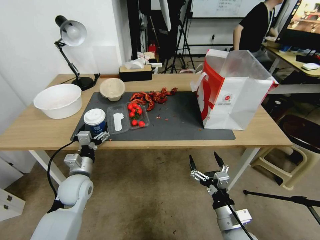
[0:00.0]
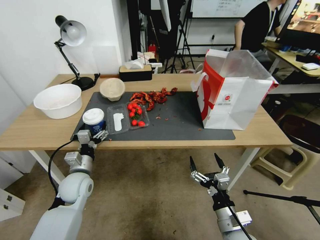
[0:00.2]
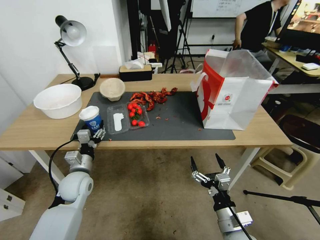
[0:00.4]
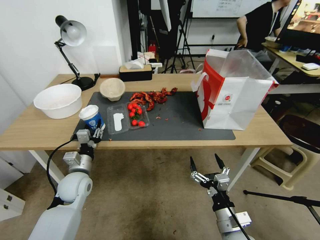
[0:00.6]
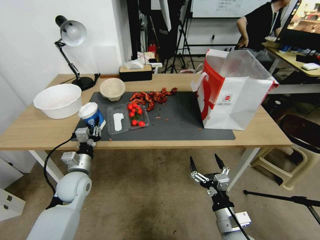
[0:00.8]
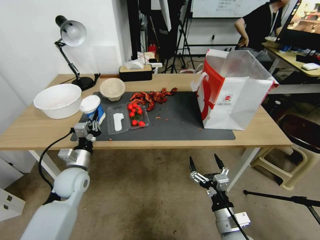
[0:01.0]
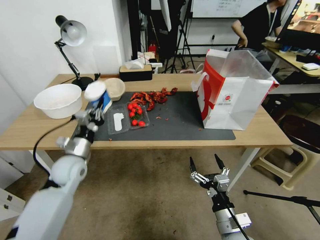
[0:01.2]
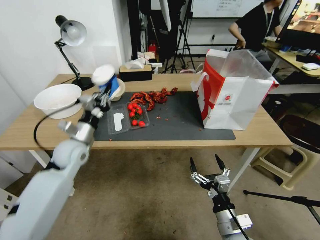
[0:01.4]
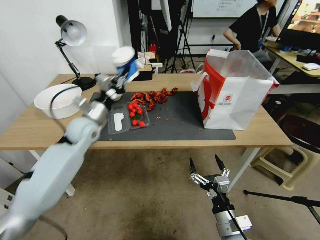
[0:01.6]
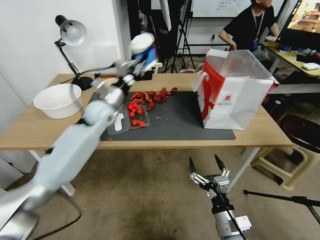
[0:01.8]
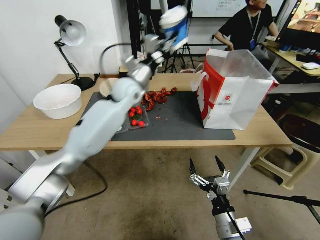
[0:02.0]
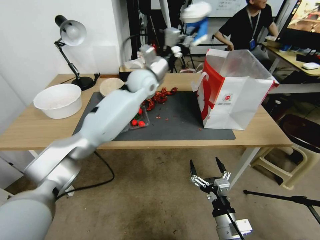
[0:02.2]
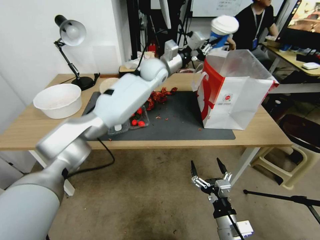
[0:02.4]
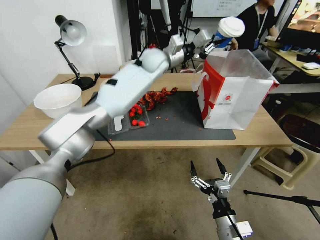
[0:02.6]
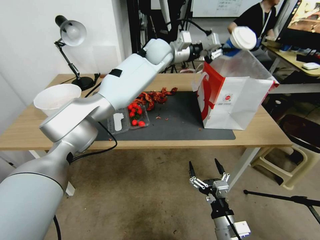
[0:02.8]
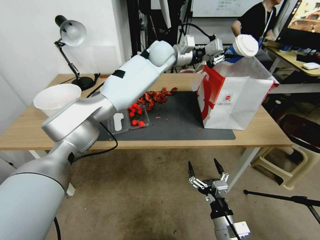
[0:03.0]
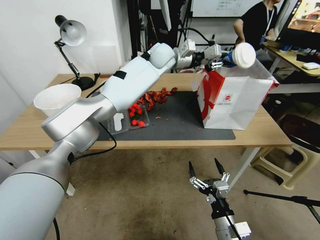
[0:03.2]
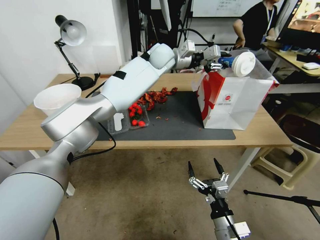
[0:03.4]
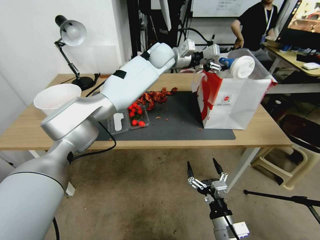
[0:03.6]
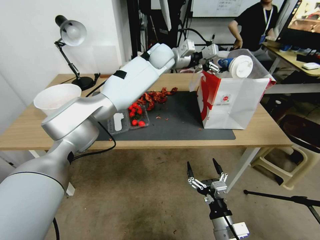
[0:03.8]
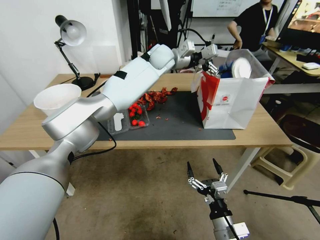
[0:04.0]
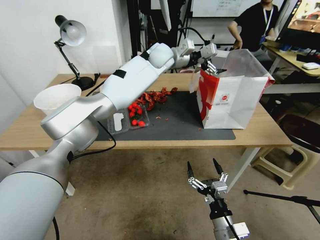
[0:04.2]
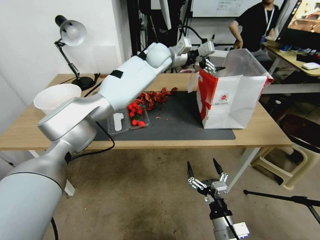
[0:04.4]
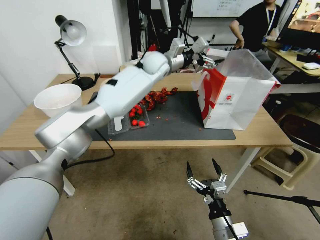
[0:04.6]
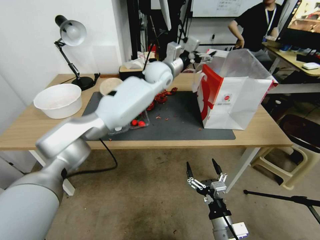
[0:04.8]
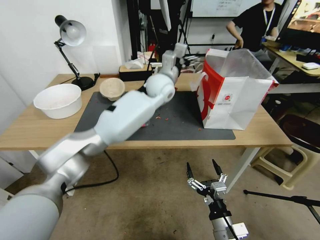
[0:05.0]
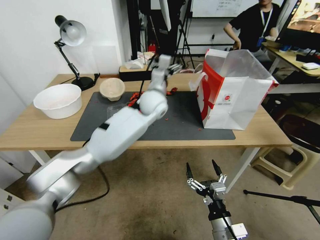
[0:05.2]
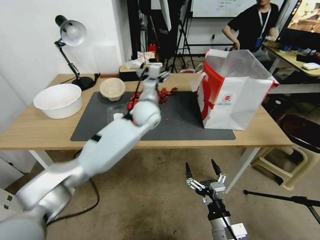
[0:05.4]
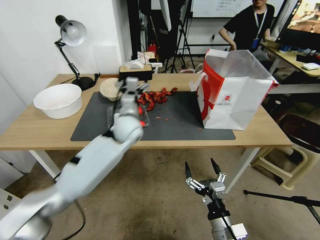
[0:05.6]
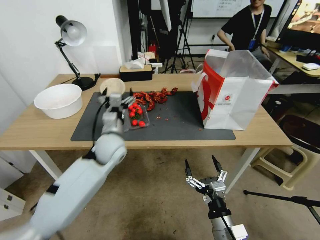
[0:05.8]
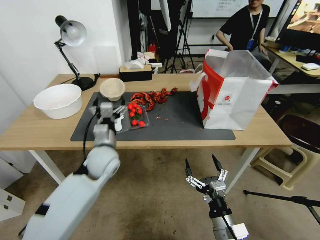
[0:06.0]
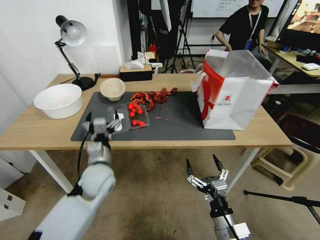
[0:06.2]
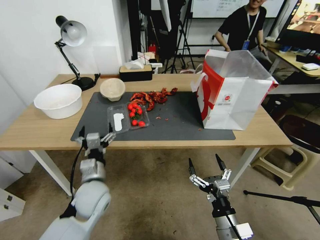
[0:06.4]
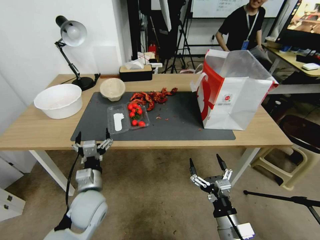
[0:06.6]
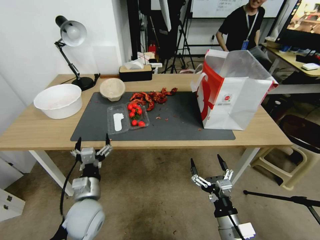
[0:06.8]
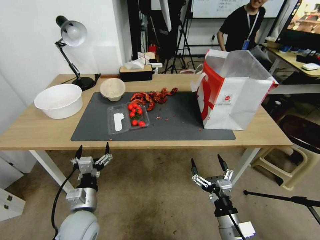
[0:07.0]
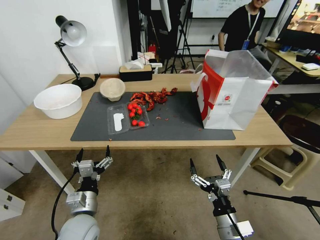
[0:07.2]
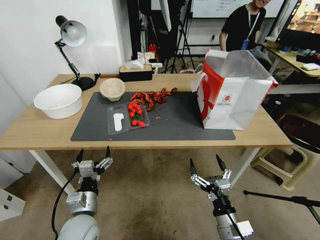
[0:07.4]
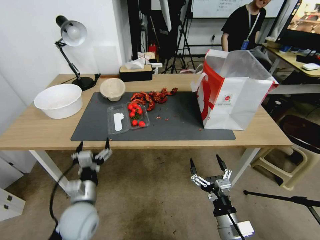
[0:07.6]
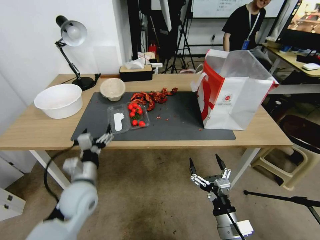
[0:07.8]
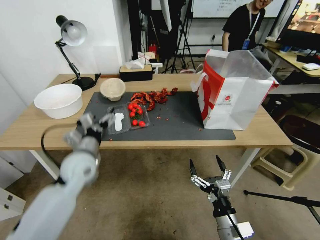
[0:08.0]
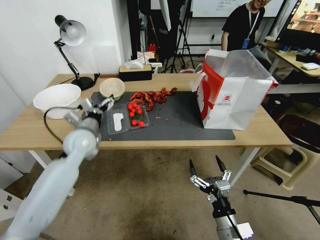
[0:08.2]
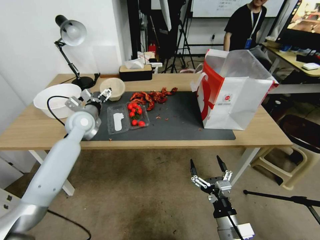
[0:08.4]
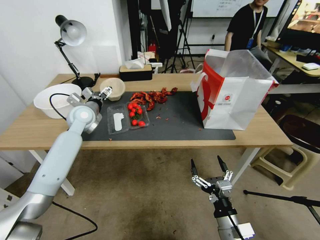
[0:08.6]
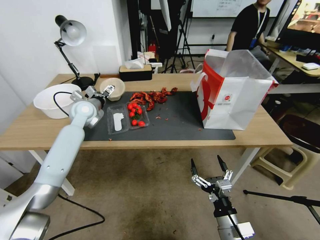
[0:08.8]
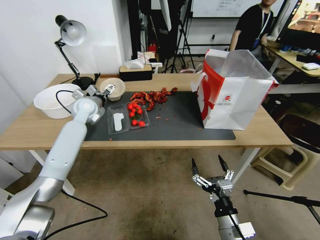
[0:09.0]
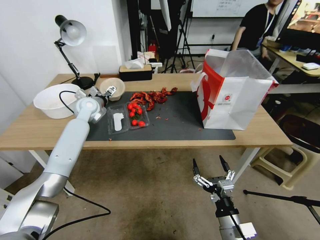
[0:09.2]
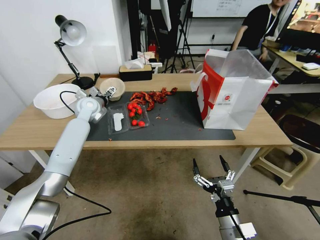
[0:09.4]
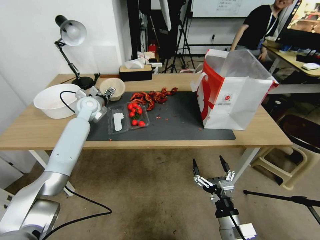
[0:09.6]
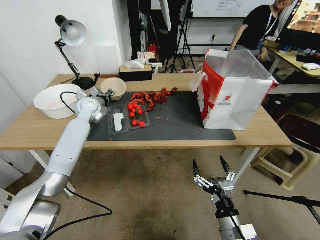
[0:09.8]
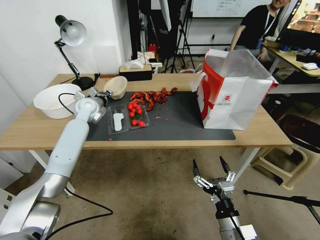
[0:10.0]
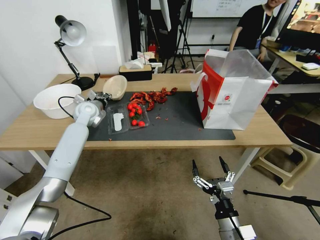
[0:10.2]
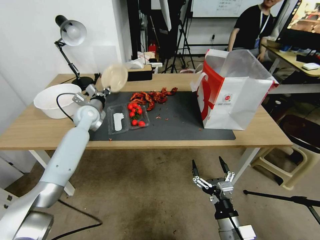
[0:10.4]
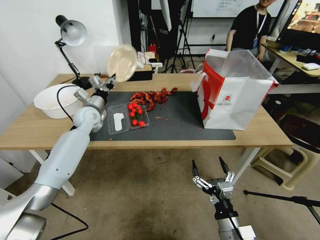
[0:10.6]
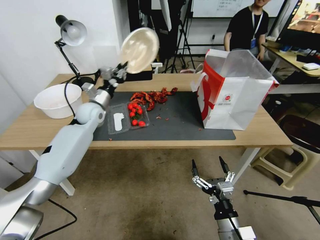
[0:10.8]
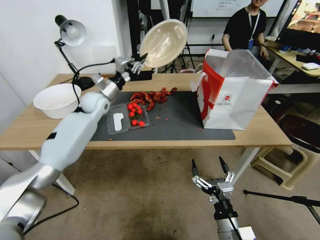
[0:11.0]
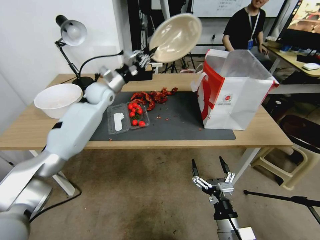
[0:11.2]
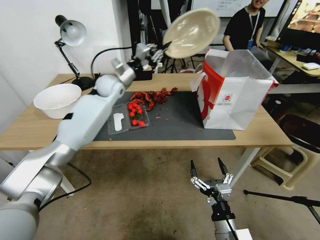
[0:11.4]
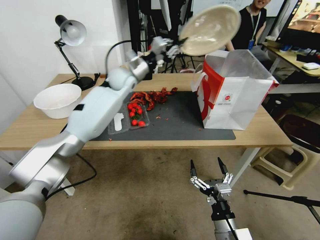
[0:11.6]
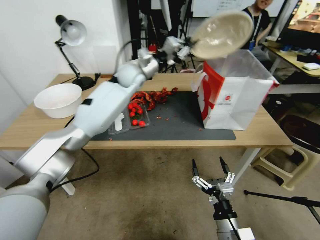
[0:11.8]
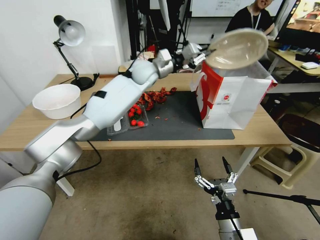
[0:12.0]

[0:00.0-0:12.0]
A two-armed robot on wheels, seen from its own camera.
0:00.0 to 0:01.6: The left gripper heads upward and forward, covering roughly 20 cm, and closes up.
0:01.6 to 0:03.0: The left gripper heads to the right, forward and upward, covering approximately 35 cm.
0:03.0 to 0:04.4: The left gripper opens up.
0:04.4 to 0:06.0: The left gripper goes roughly 30 cm backward, downward and to the left.
0:06.0 to 0:07.6: The left gripper shifts approximately 25 cm backward, downward and to the left.
0:07.6 to 0:09.0: The left gripper shifts roughly 30 cm forward.
0:09.0 to 0:10.4: The left gripper closes its fingers.
0:10.4 to 0:12.0: The left gripper goes approximately 20 cm to the right and upward.

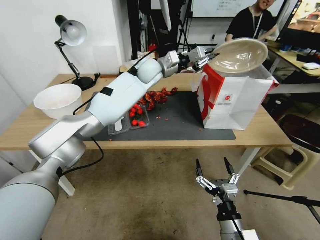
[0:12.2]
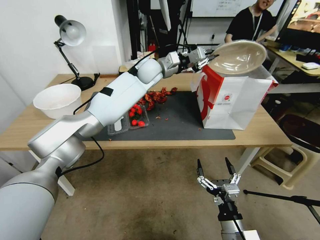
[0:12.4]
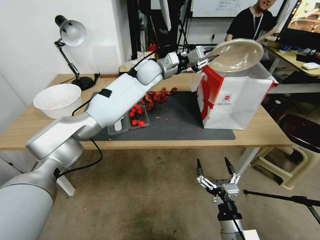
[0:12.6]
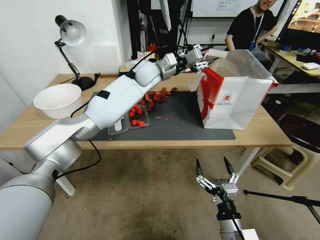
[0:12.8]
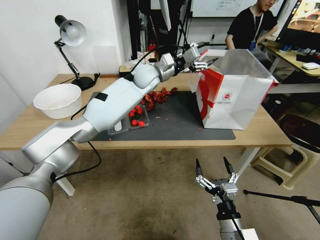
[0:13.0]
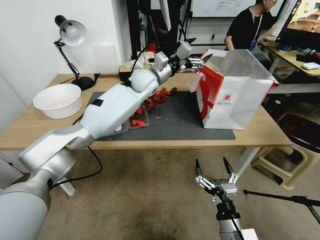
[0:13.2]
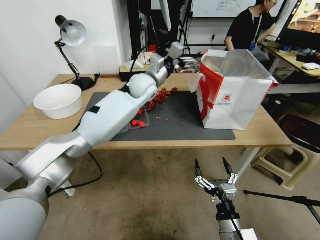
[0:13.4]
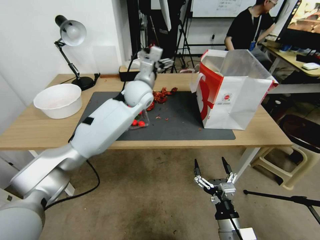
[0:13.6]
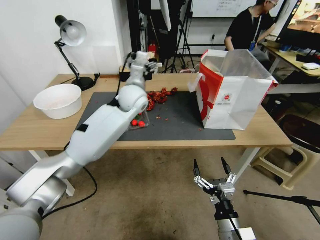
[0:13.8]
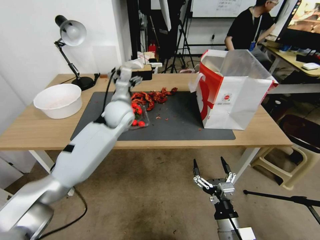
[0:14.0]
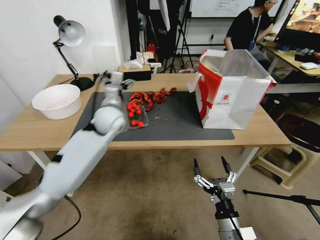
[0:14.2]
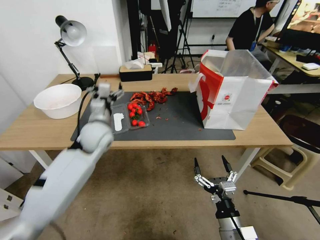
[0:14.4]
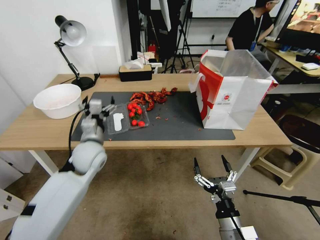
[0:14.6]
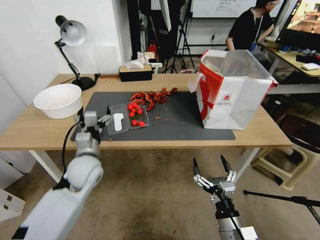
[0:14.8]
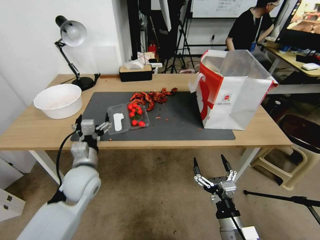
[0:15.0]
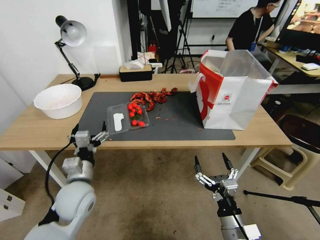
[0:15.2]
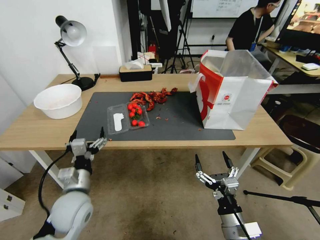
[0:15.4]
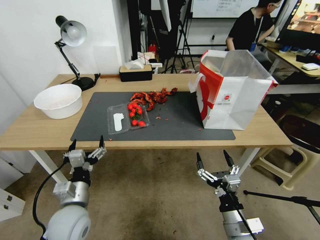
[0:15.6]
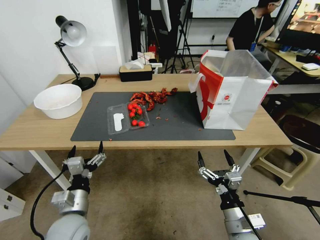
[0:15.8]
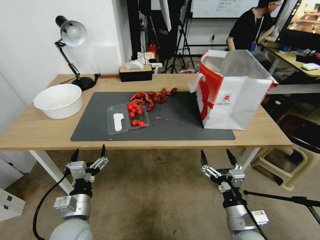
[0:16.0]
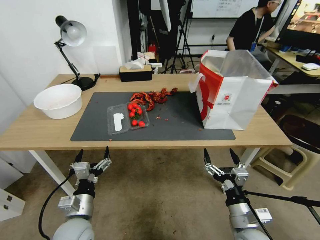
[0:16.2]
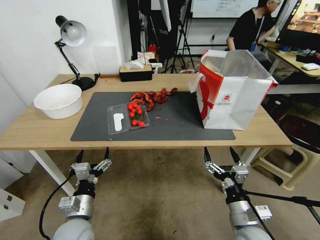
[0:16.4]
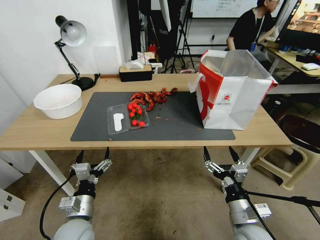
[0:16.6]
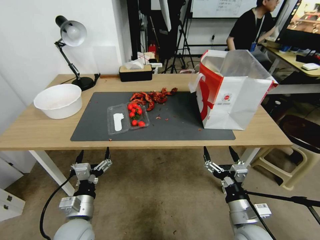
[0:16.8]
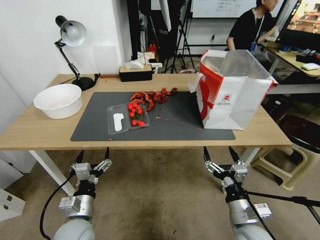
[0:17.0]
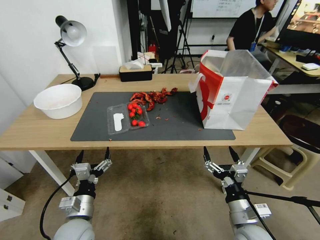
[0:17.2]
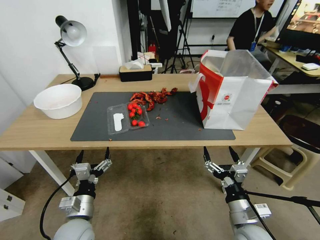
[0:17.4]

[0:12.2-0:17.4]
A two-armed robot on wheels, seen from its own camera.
0:12.2 to 0:14.0: The left gripper heads backward and downward, covering roughly 10 cm, and opens its fingers.
0:14.0 to 0:15.6: The left gripper heads backward, downward and to the left, covering about 35 cm.
0:15.6 to 0:17.4: The grippers stay close to where they were, moving slightly.
